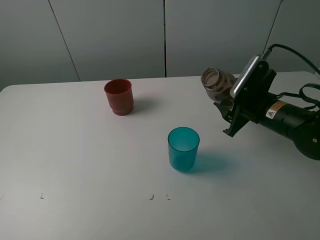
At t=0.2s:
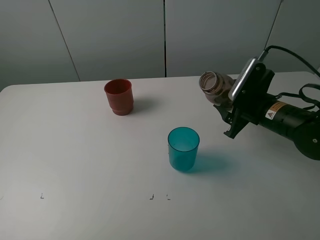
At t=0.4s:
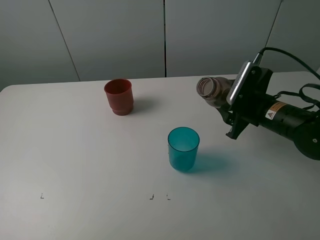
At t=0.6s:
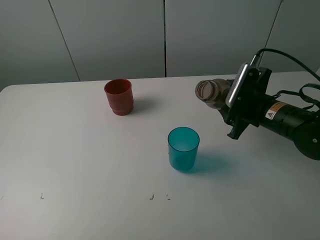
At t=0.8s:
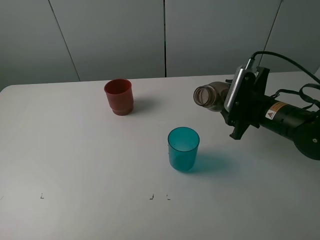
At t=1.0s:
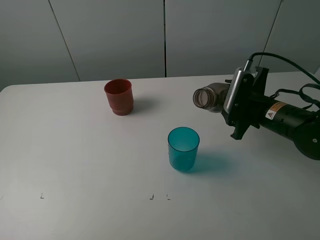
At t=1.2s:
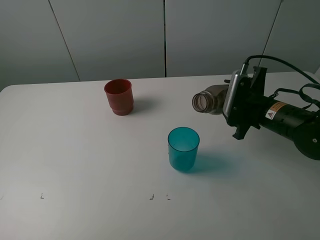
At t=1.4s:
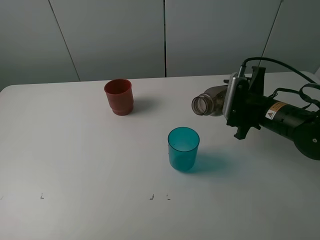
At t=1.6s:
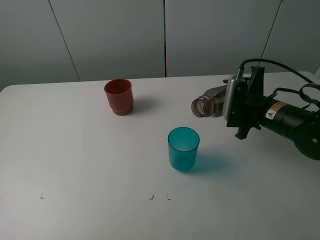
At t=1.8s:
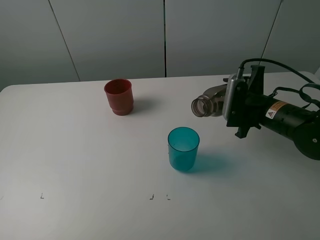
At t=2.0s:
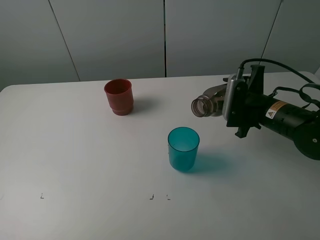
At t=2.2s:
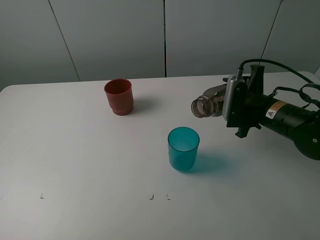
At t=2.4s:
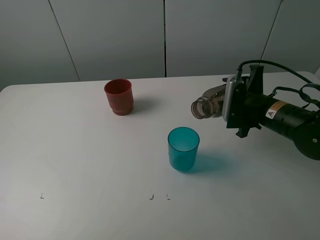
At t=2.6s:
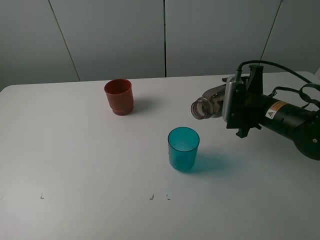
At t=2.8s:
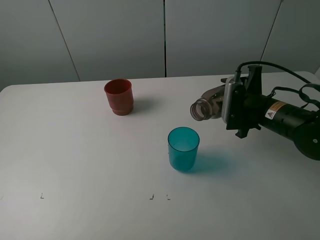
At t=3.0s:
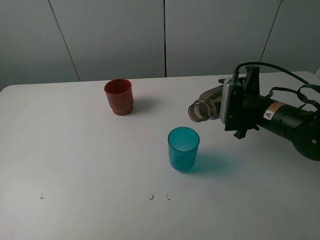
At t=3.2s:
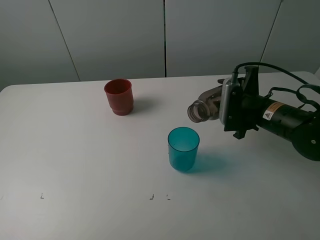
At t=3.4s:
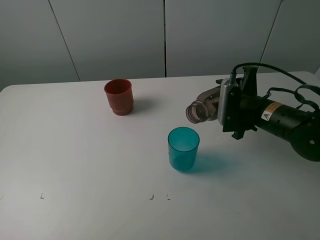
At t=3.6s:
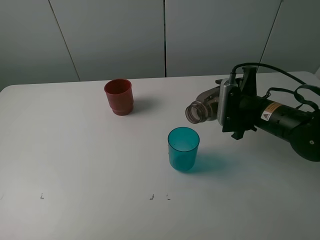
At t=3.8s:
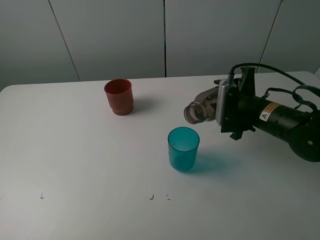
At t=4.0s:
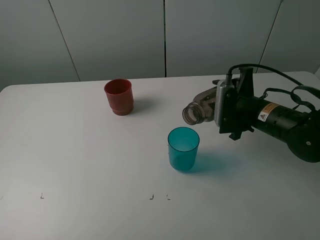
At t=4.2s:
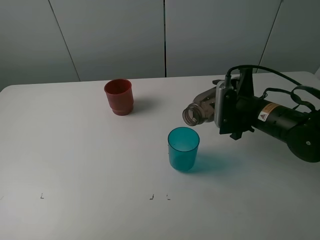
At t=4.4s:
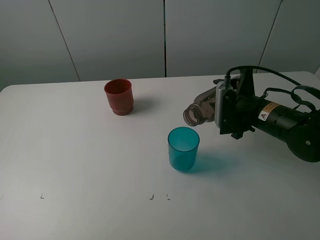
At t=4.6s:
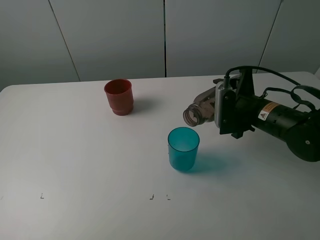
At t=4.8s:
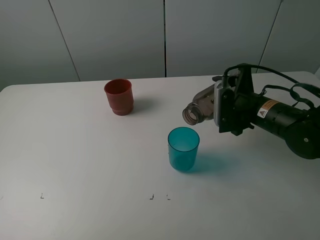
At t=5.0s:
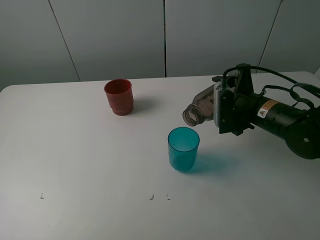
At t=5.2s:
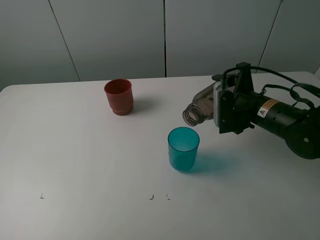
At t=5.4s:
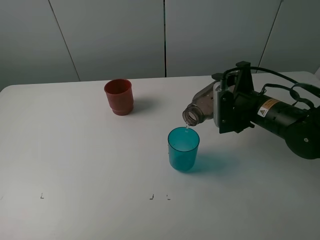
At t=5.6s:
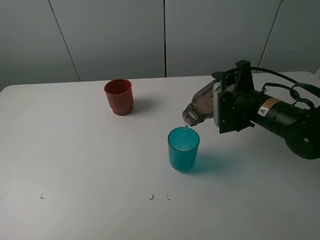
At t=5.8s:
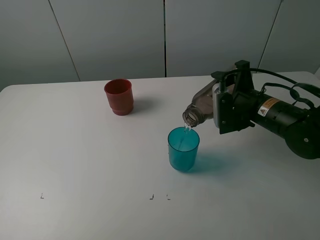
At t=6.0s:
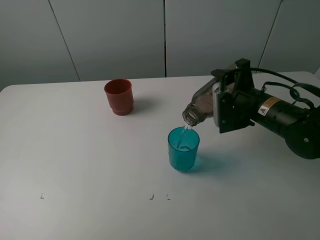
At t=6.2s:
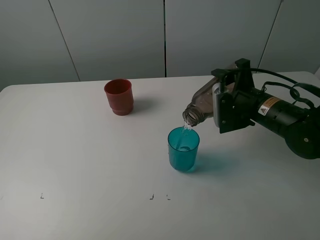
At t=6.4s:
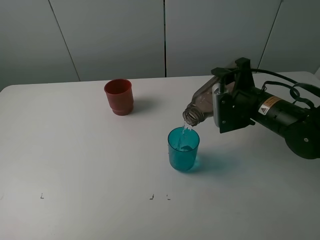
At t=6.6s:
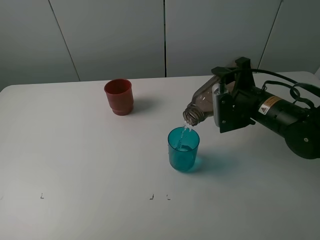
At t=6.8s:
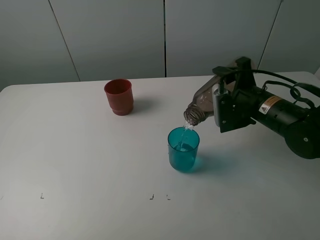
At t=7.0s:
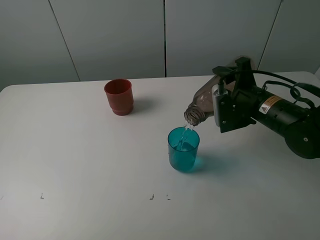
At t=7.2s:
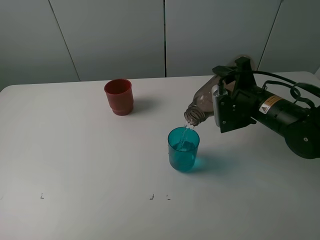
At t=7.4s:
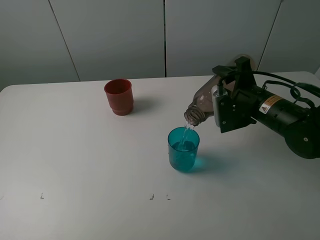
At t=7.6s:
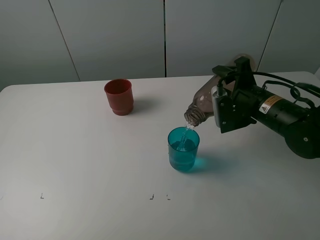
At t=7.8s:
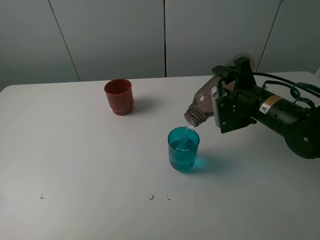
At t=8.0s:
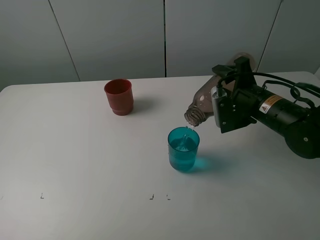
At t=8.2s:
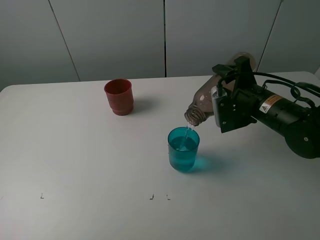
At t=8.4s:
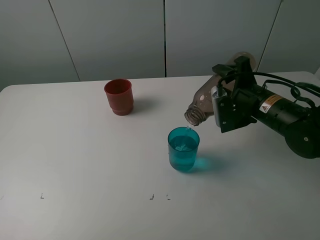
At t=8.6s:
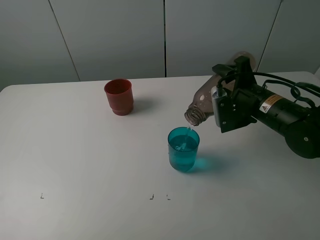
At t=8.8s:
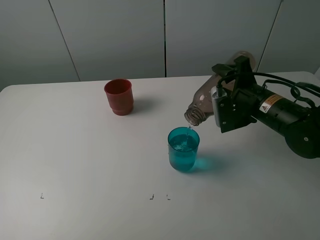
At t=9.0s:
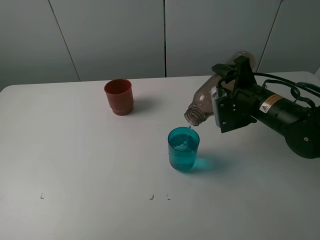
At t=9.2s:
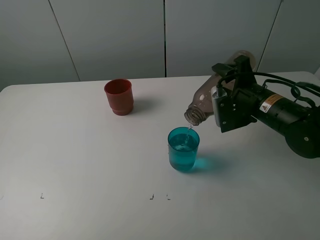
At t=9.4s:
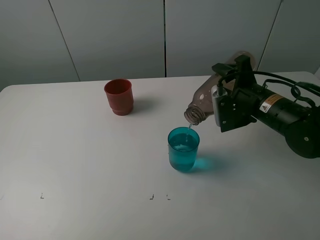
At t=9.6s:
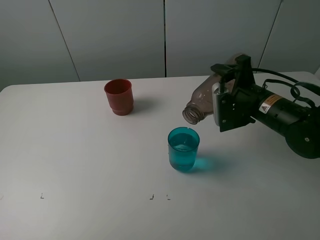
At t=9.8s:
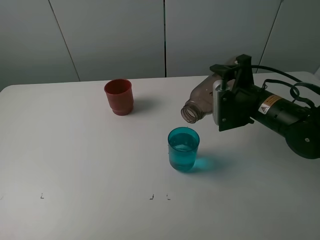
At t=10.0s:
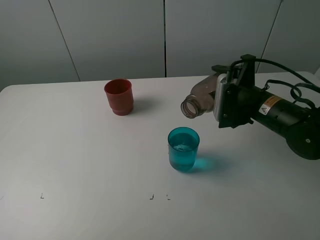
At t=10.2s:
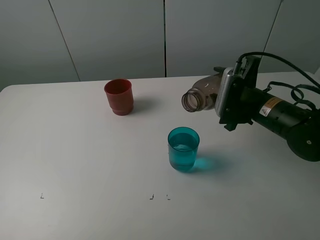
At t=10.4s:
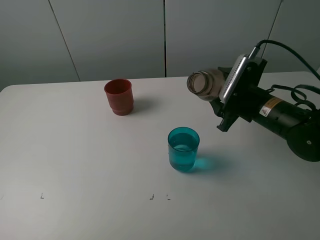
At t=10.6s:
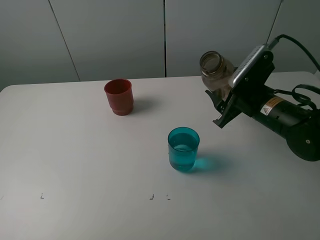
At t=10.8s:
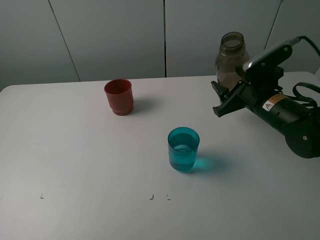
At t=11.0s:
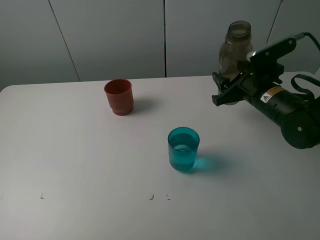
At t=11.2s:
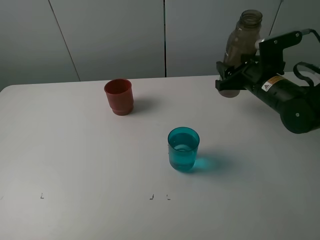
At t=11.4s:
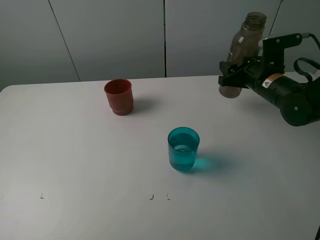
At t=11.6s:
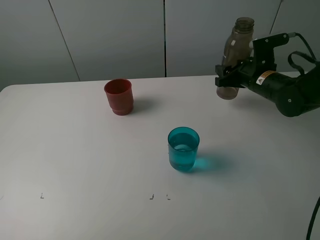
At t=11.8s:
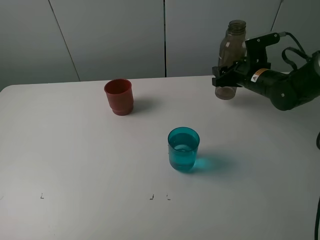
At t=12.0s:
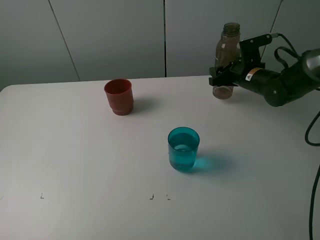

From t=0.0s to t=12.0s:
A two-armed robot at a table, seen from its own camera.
Task of the whole recording: pick up the bottle and pour water into the cup, then pick up the cup containing water and pour it into another cup.
Step, from t=0.0s to t=9.8s: Pour water from brown bottle to blue cup with the right gripper.
From t=1.6s to t=3.0s: The grippers stay close to where they were, moving slightly.
From t=3.0s to t=4.4s: Neither gripper changes place.
From t=4.4s to t=7.6s: The grippers make only small movements.
From t=7.6s to t=9.0s: The two grippers keep their place.
From t=10.4s to t=12.0s: The right gripper travels forward by roughly 15 cm.

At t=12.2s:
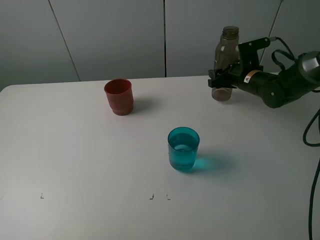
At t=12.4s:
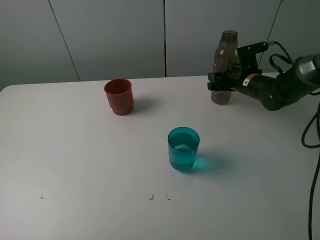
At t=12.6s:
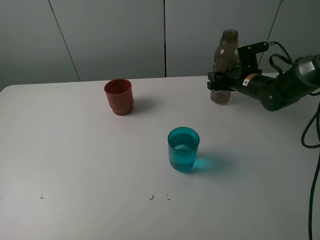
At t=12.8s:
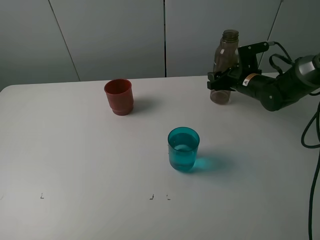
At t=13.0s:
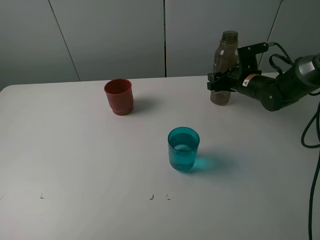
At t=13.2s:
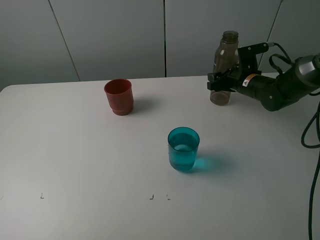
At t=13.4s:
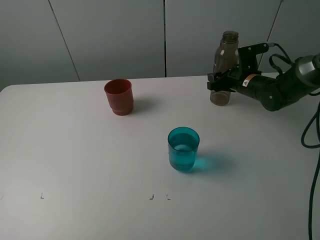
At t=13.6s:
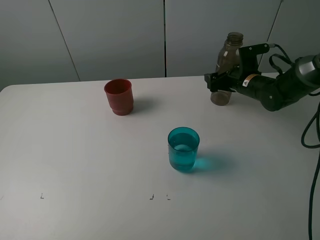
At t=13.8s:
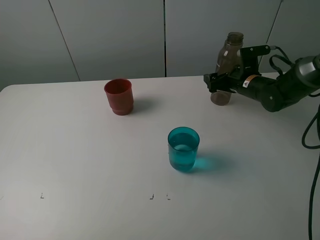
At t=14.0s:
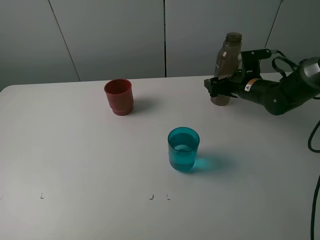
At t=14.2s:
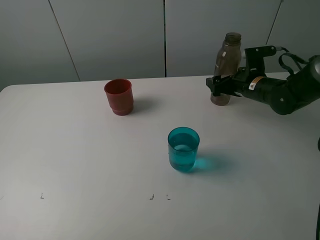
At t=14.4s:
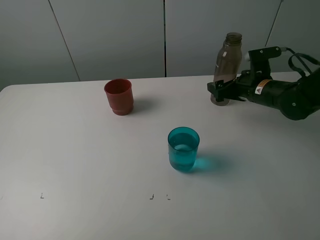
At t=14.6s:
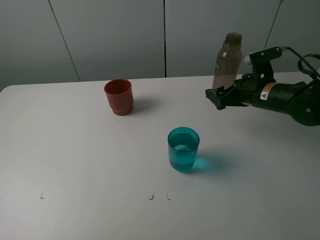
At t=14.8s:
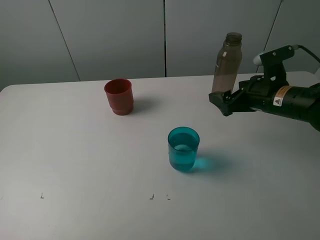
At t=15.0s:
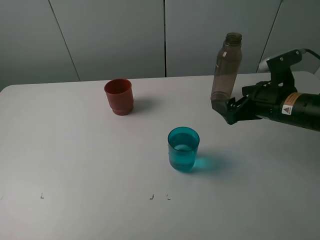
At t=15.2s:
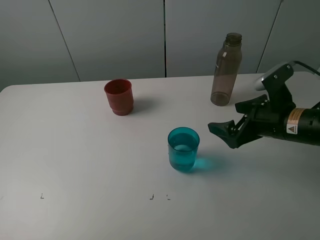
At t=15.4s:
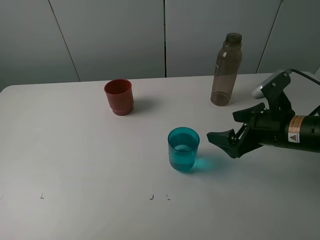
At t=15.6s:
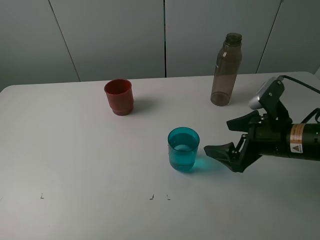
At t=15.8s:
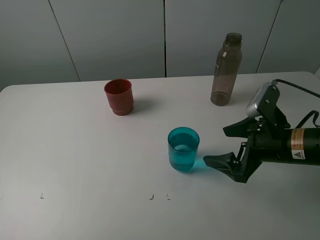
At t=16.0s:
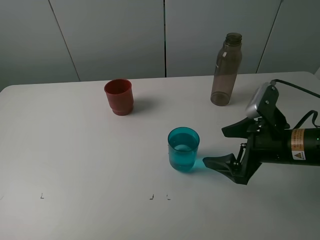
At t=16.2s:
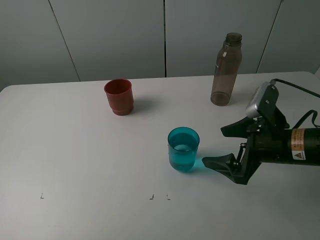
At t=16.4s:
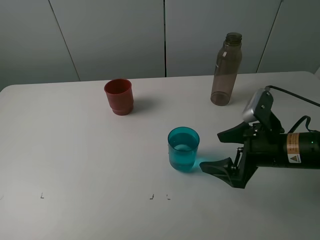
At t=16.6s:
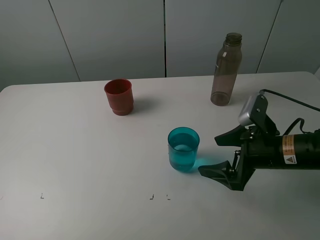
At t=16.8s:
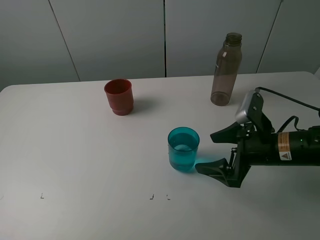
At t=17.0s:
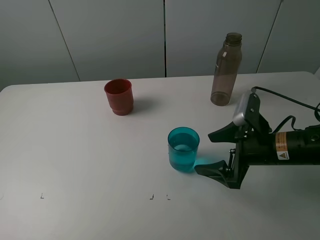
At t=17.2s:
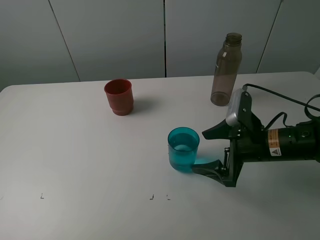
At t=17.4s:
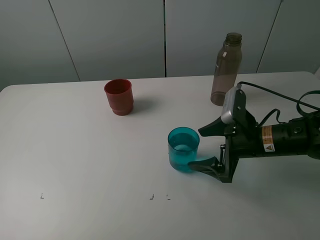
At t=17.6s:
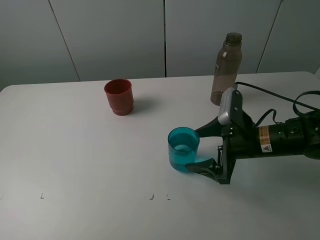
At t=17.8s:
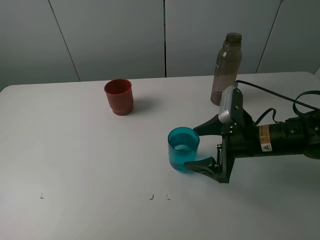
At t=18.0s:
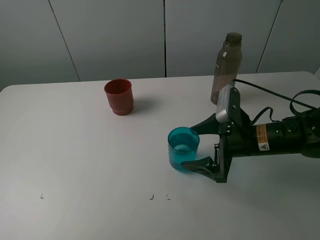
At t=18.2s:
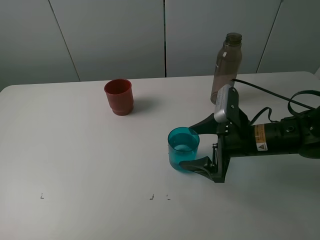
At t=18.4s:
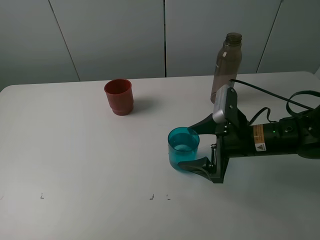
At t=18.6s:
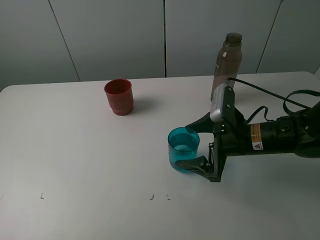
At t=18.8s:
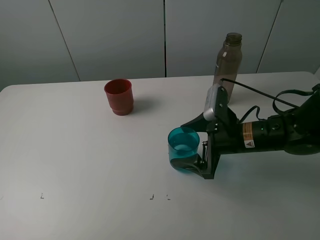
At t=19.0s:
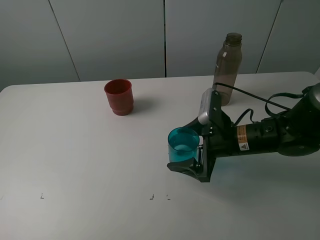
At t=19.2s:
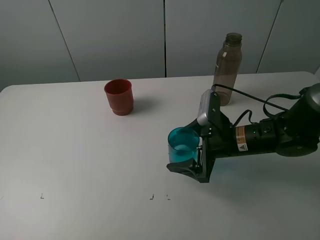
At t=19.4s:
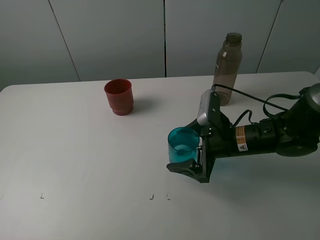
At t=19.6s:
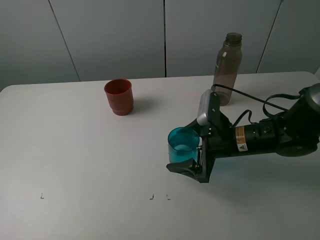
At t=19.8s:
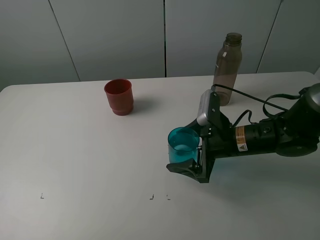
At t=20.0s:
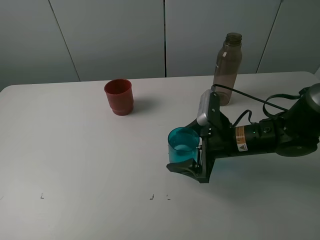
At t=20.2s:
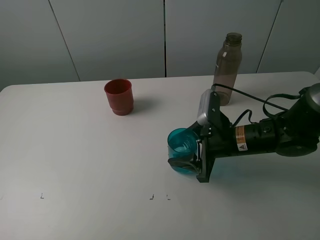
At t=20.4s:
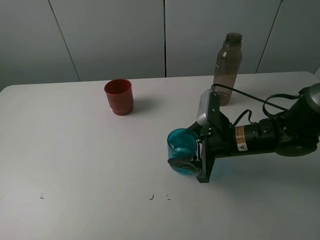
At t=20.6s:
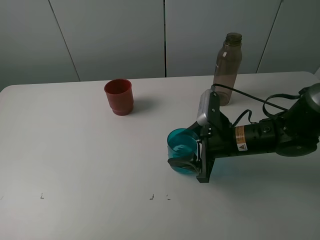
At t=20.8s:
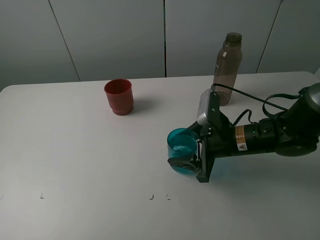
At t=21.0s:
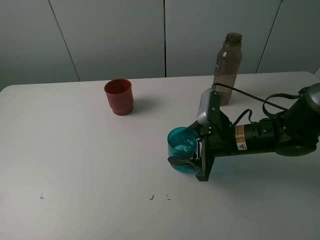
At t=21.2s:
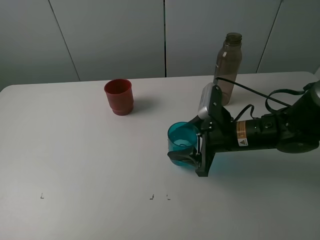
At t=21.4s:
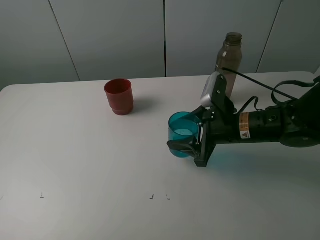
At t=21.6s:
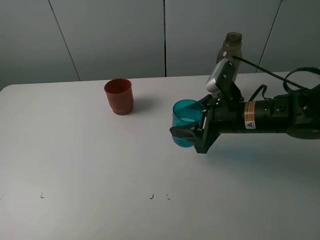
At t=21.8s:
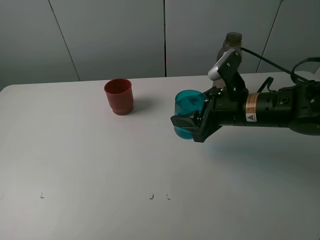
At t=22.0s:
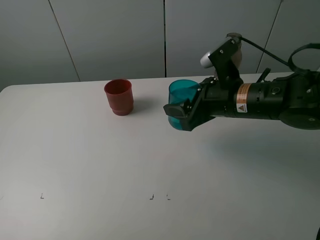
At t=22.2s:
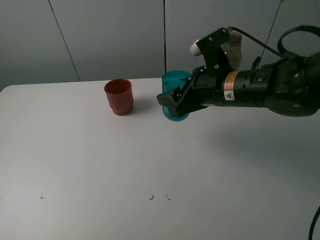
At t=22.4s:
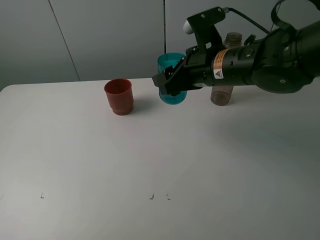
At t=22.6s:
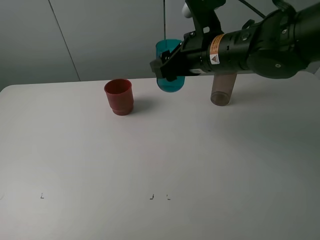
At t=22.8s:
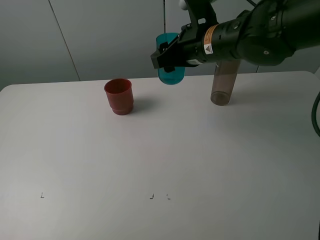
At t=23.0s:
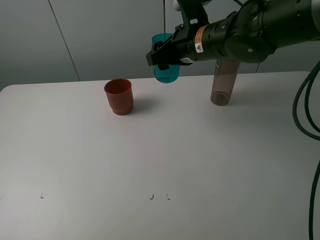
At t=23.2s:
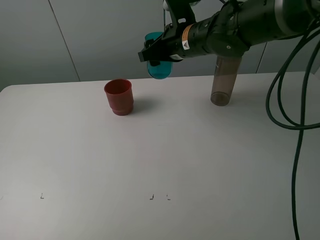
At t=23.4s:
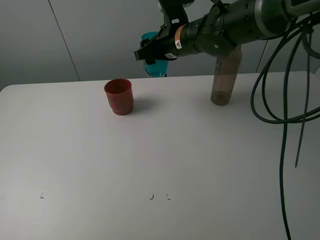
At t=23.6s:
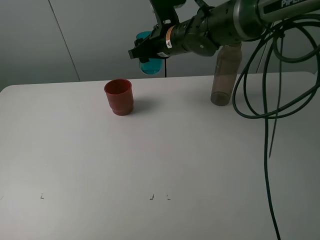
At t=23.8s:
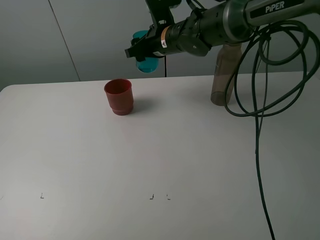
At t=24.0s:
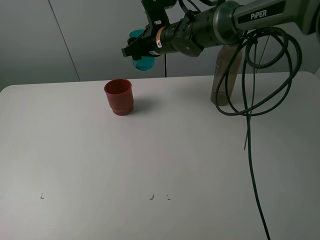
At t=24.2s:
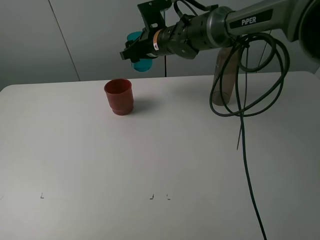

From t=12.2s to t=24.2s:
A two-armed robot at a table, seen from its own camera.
Task of the whole recording: pick up the bottle and pour water into the cup, then pick up the cup containing water and pour it into another cup.
Step, from t=14.2s to t=20.4s: Grasp the blue cup with the right gripper.
From t=12.2s to t=13.8s: The right gripper opens up.
From t=13.8s to t=15.2s: The right gripper travels backward by approximately 20 cm.
From t=15.2s to t=16.6s: The grippers stay close to where they were, moving slightly.
From t=16.6s to t=18.2s: The grippers make only small movements.
From t=18.2s to t=19.8s: The grippers stay close to where they were, moving slightly.
From t=19.8s to t=21.2s: The right gripper closes up.
From t=21.2s to t=22.6s: The right gripper travels upward and forward by some 15 cm.
From t=22.6s to t=24.2s: The right gripper goes approximately 15 cm forward and to the left.
